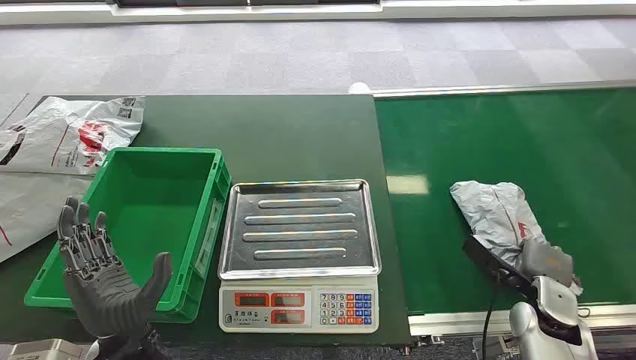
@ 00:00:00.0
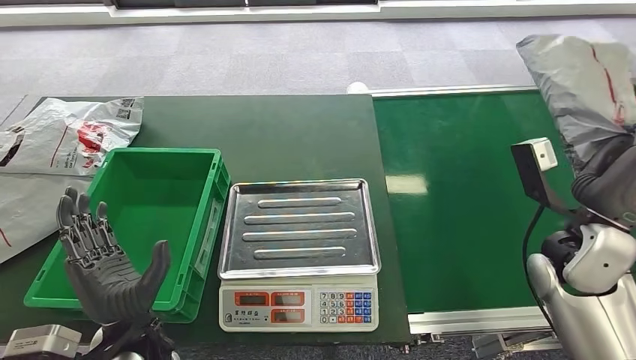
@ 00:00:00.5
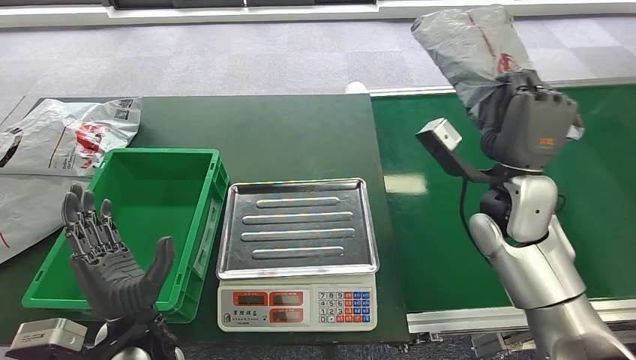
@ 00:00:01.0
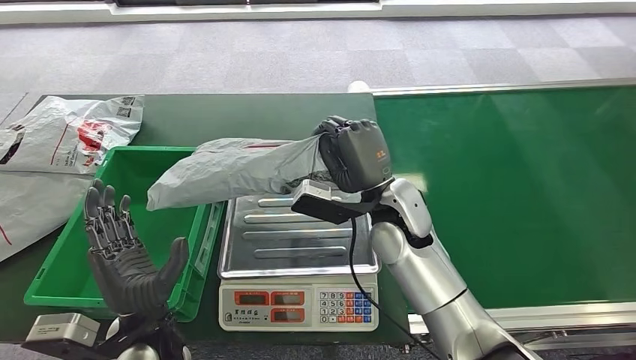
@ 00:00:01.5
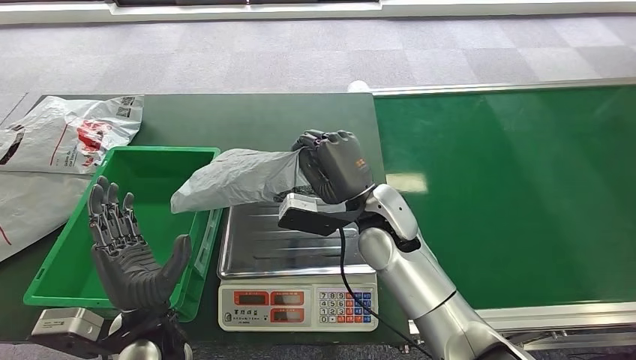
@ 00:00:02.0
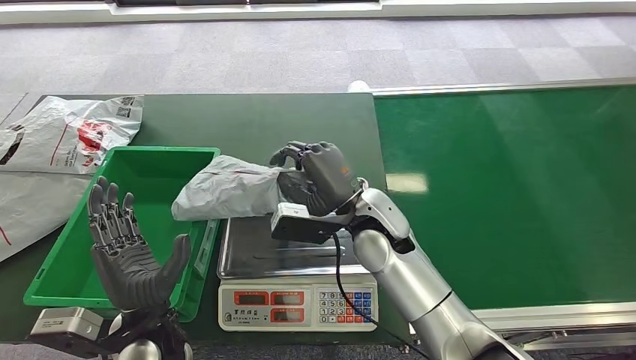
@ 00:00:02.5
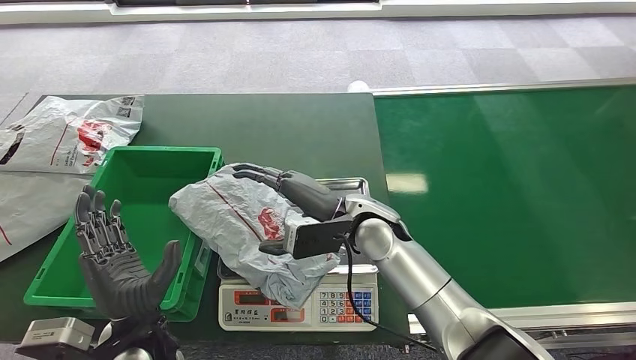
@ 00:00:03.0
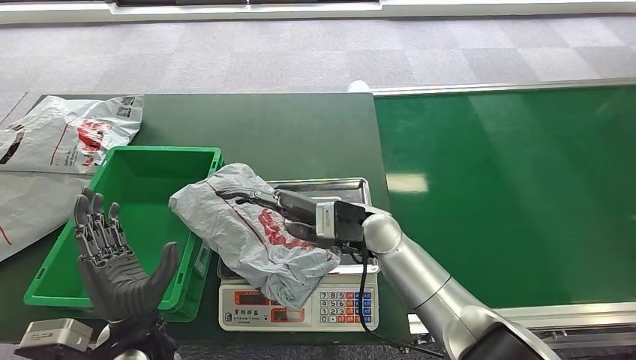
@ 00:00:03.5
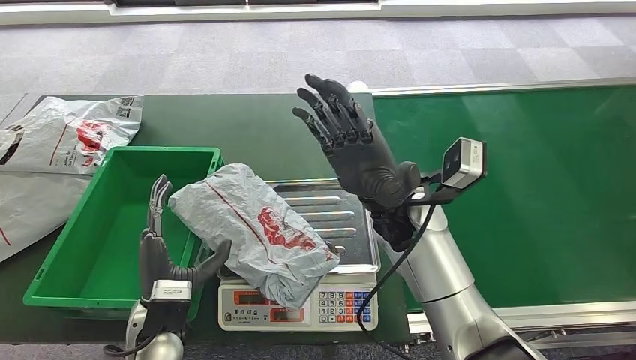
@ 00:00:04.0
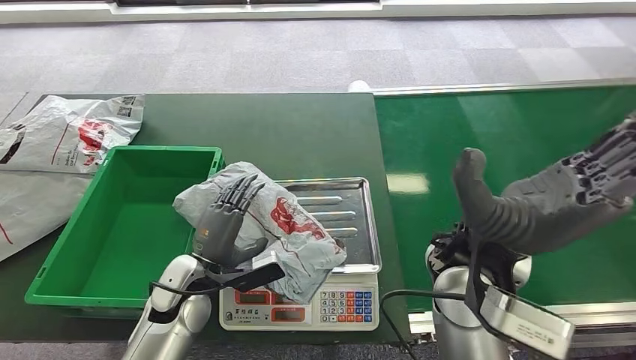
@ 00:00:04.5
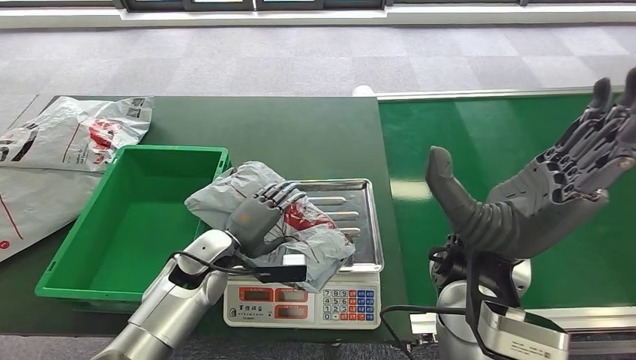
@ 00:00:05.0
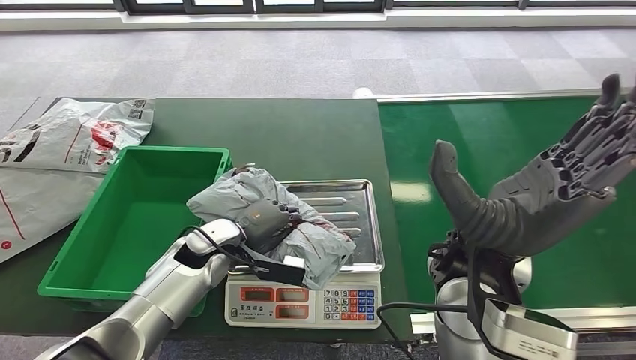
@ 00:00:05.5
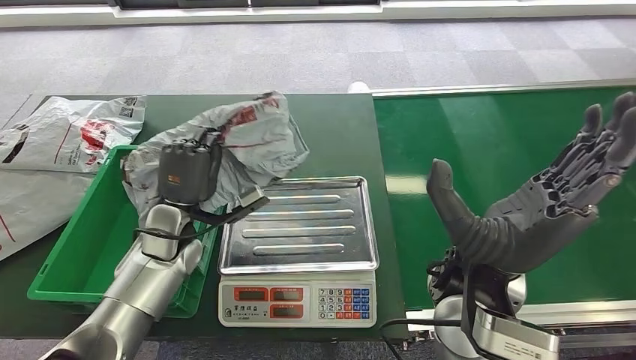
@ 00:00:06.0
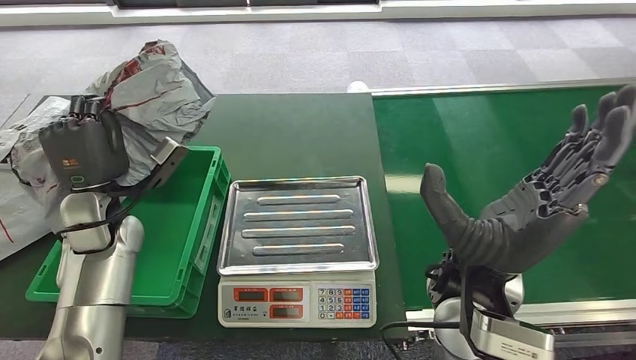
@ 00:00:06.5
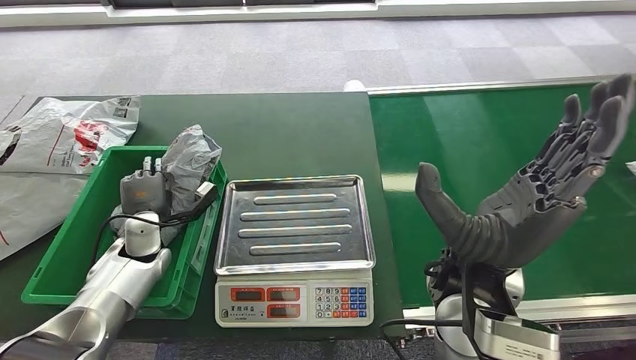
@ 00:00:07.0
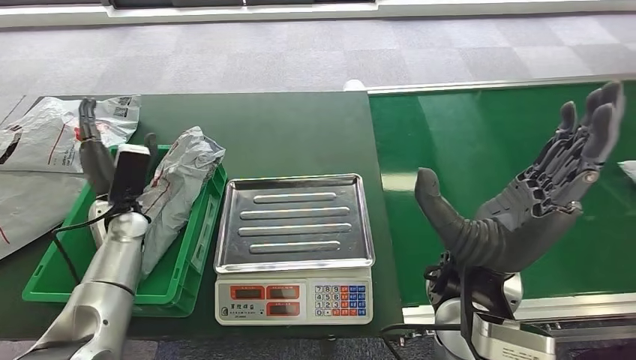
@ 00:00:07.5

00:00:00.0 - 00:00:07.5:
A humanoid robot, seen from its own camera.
Step, 00:00:00.0 - 00:00:00.5: Pick up the package from the conveyor belt.
Step, 00:00:01.0 - 00:00:03.0: Place the package onto the inbound machine.
Step, 00:00:05.0 - 00:00:06.0: Pick up the package from the inbound machine.
Step, 00:00:06.5 - 00:00:07.0: Place the package into the parcel locker.

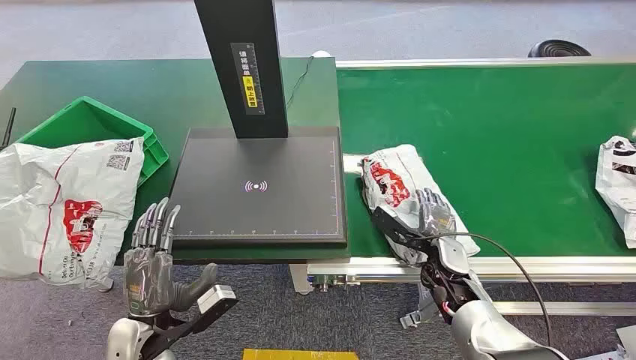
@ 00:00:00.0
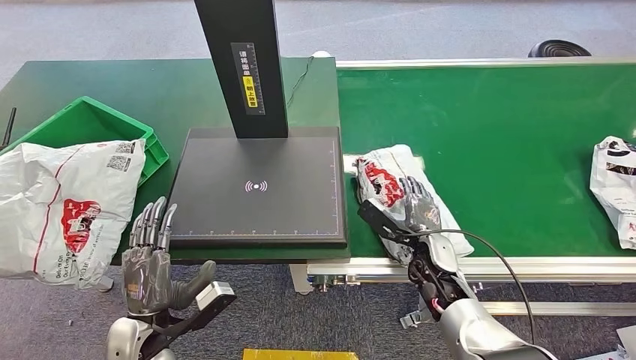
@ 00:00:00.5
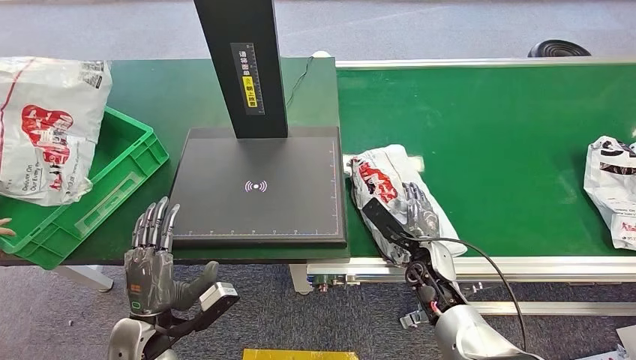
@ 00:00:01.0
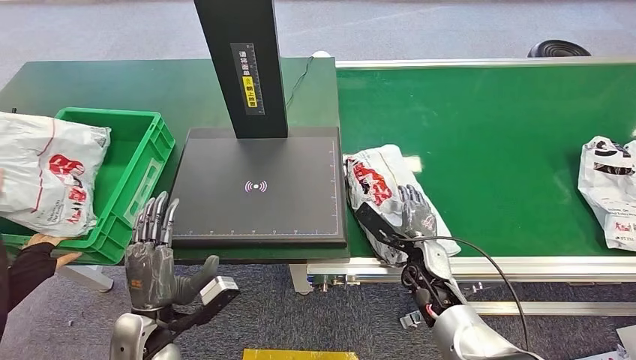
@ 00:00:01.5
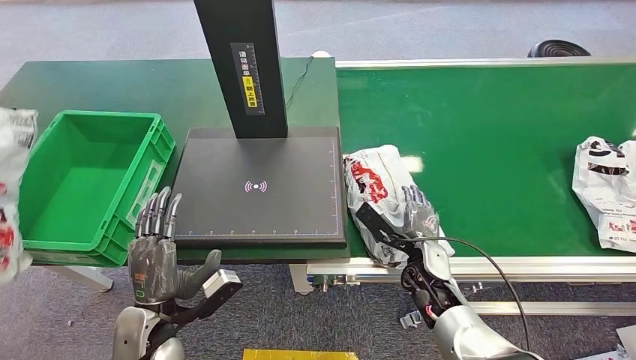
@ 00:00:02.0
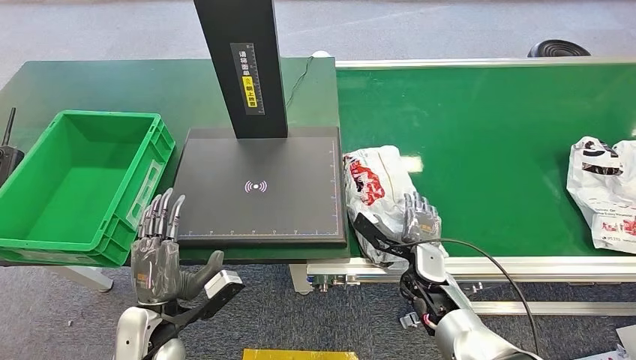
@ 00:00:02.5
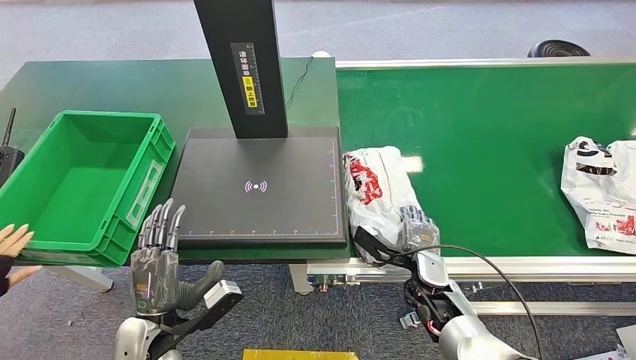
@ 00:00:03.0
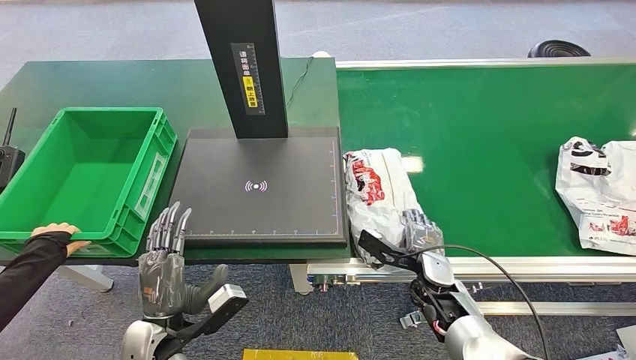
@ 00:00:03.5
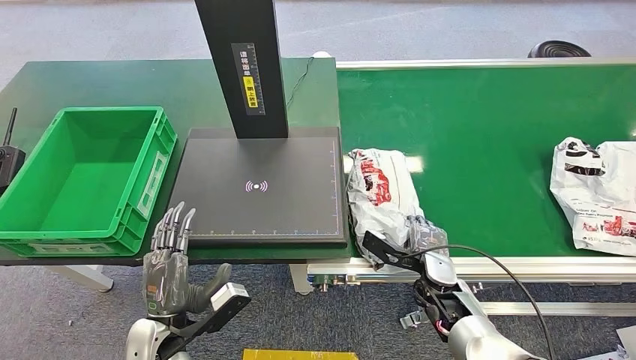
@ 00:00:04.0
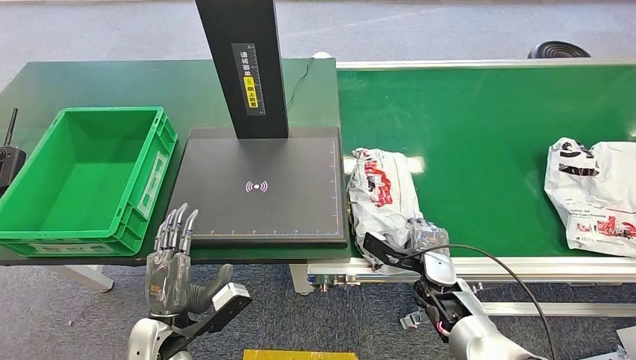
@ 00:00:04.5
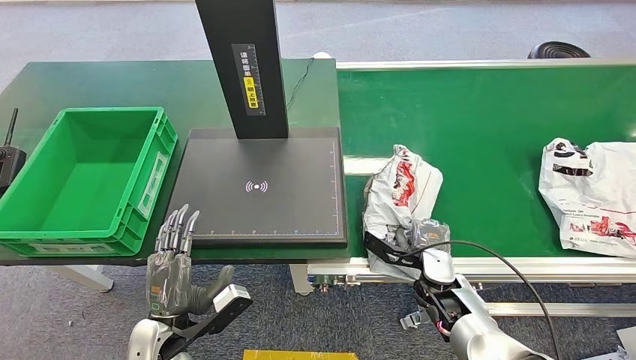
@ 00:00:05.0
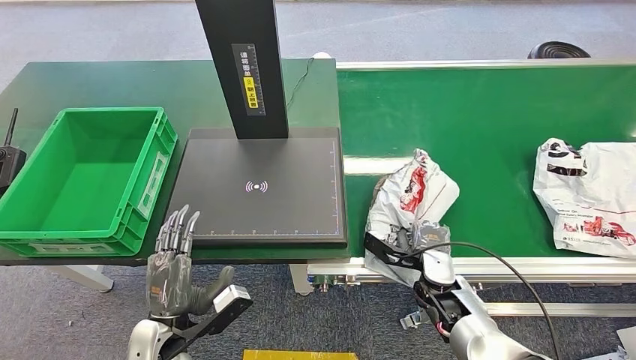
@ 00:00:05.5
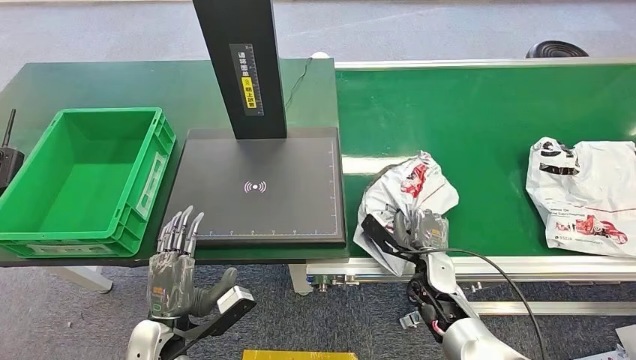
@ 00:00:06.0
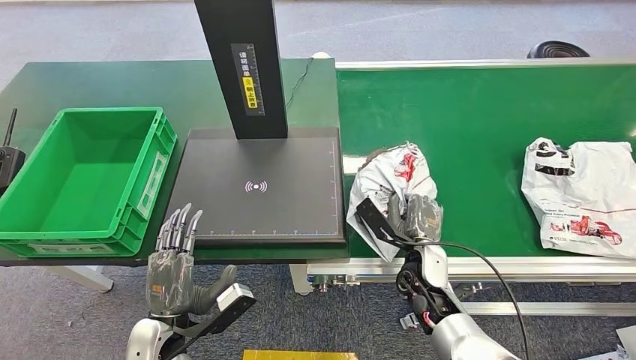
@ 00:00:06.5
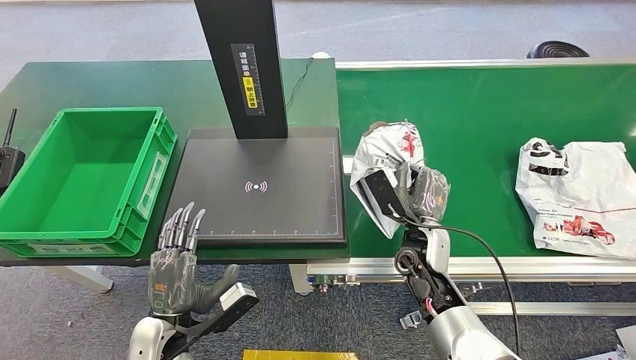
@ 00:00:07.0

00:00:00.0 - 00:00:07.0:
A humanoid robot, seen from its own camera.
Step, 00:00:00.0 - 00:00:07.0: Pick up the package from the conveyor belt.
00:00:03.5 - 00:00:05.0: There are only small adjustments of the hands.
00:00:05.0 - 00:00:07.0: The right hand travels upward and to the left by some 10 cm.

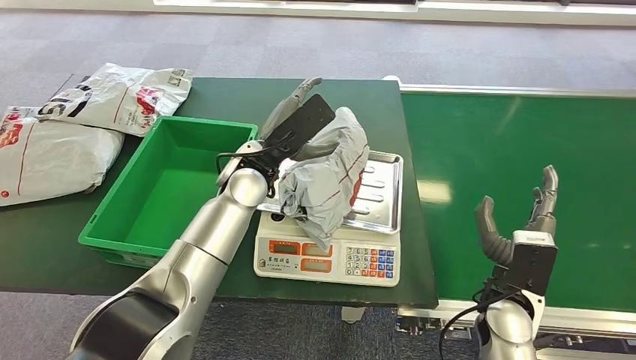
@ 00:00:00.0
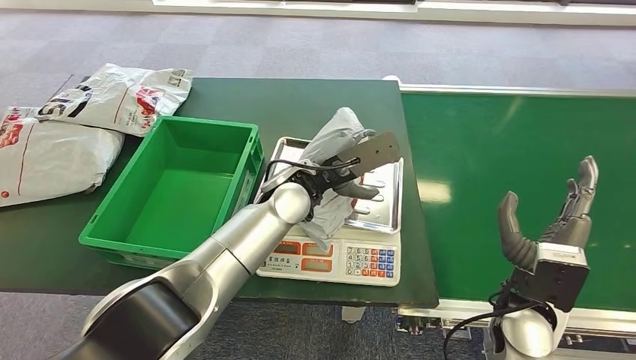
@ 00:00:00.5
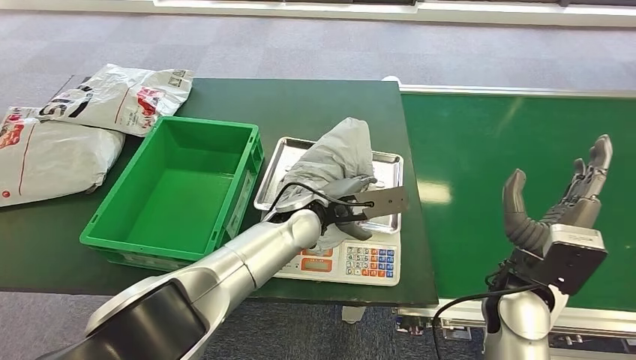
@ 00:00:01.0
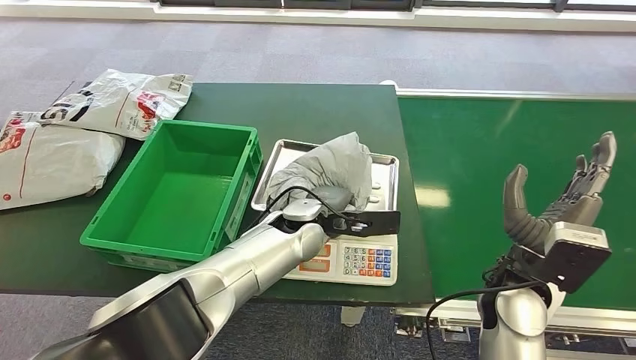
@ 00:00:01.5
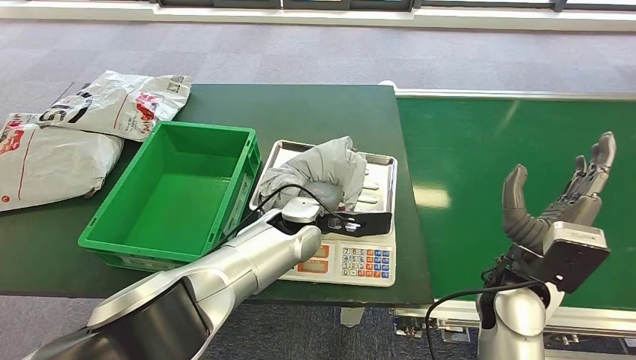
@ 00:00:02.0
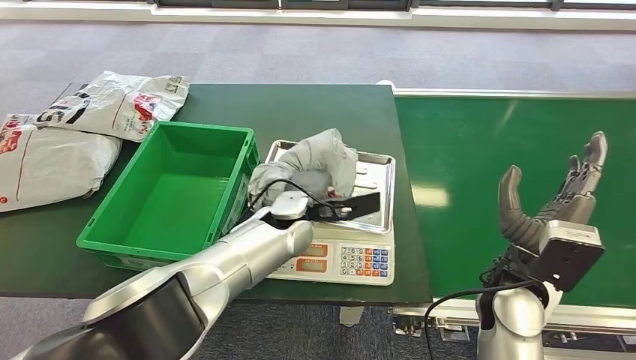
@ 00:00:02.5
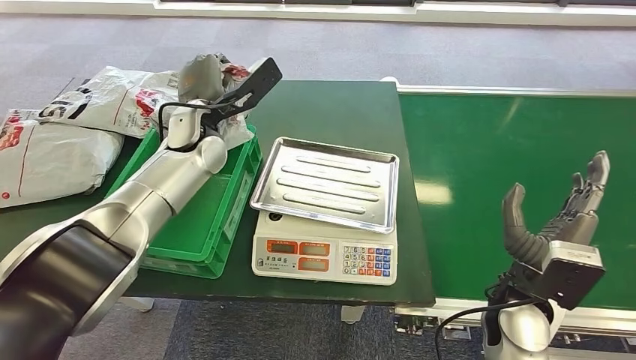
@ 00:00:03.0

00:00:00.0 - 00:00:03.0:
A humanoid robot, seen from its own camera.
Step, 00:00:00.5 - 00:00:02.5: Pick up the package from the inbound machine.
